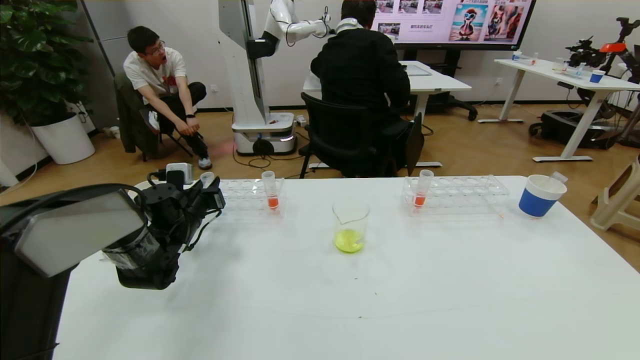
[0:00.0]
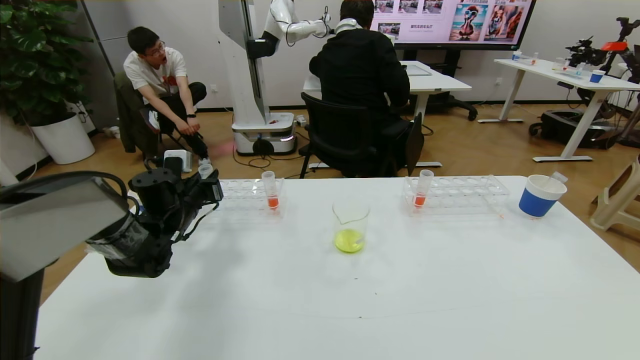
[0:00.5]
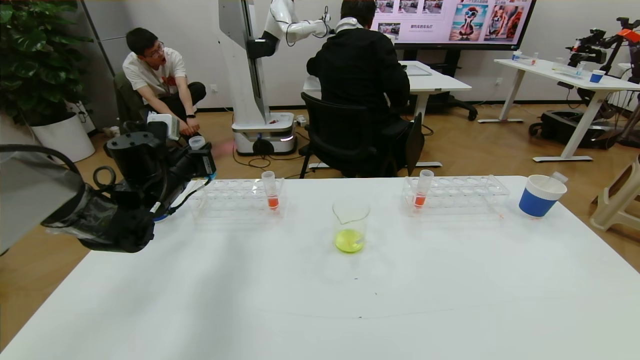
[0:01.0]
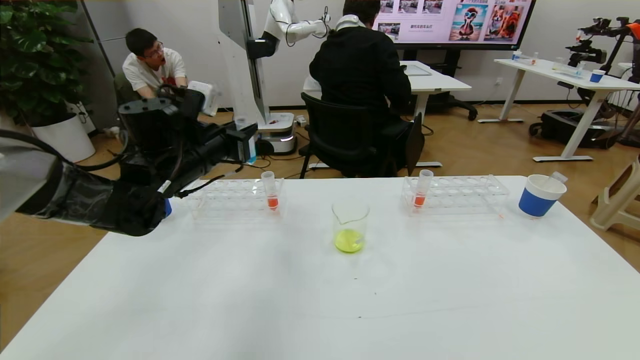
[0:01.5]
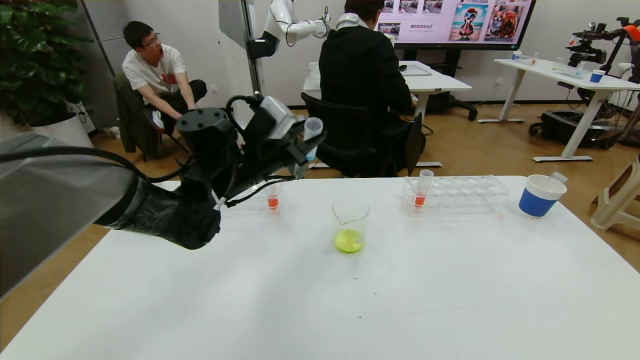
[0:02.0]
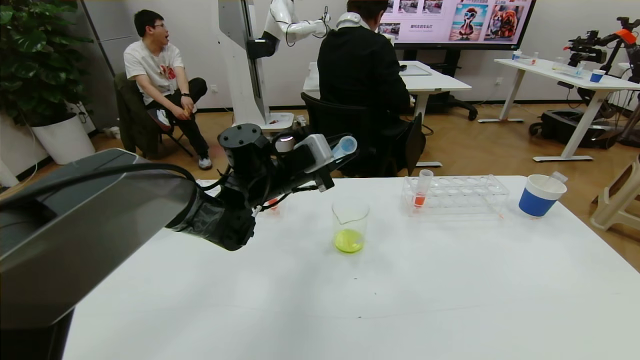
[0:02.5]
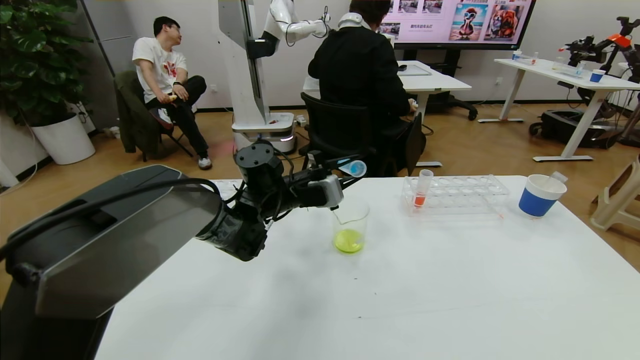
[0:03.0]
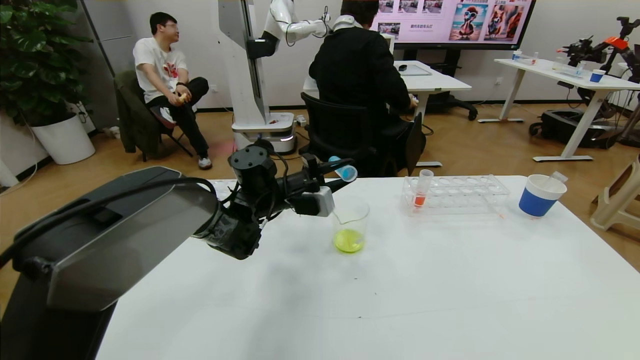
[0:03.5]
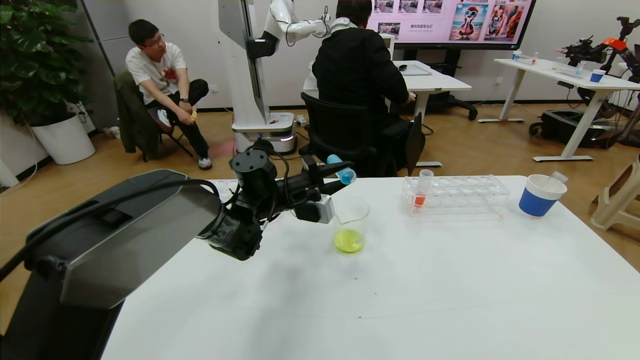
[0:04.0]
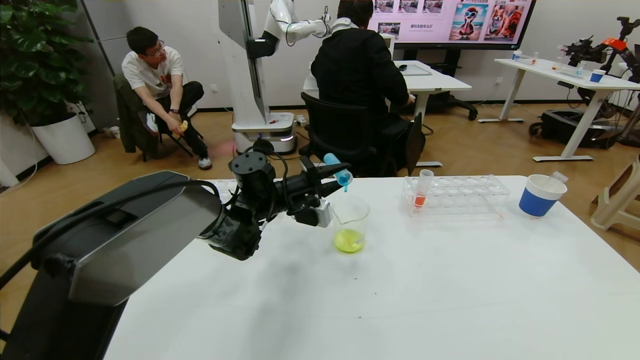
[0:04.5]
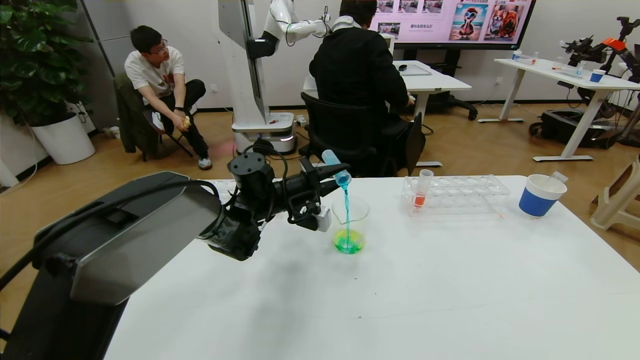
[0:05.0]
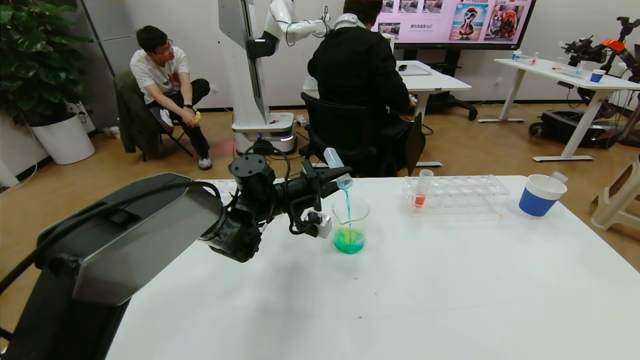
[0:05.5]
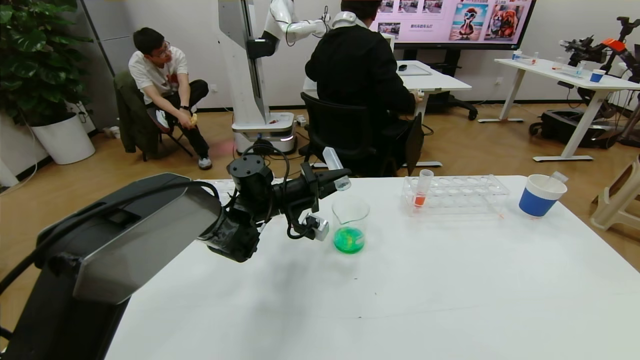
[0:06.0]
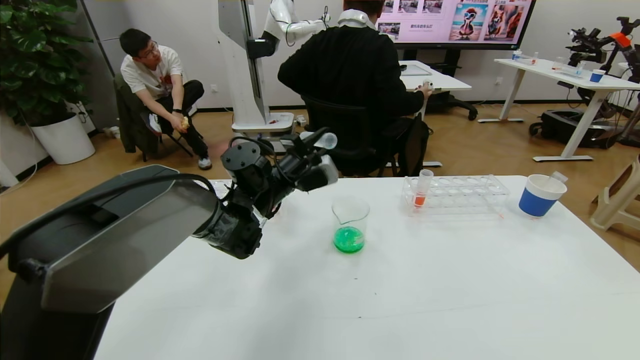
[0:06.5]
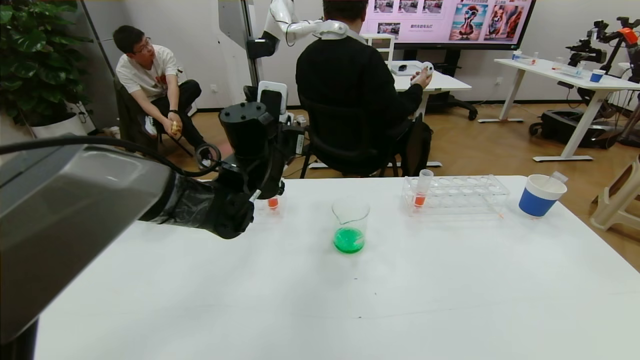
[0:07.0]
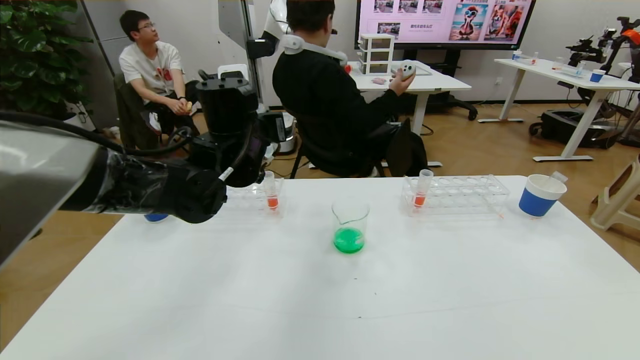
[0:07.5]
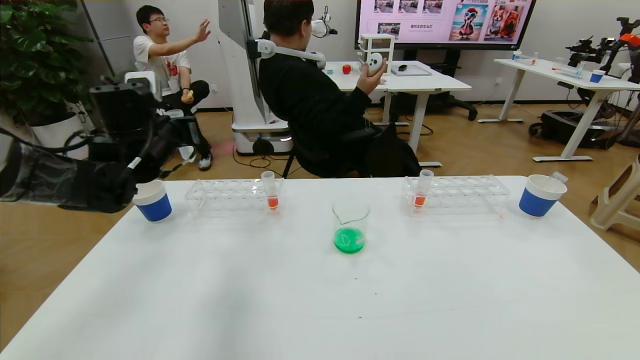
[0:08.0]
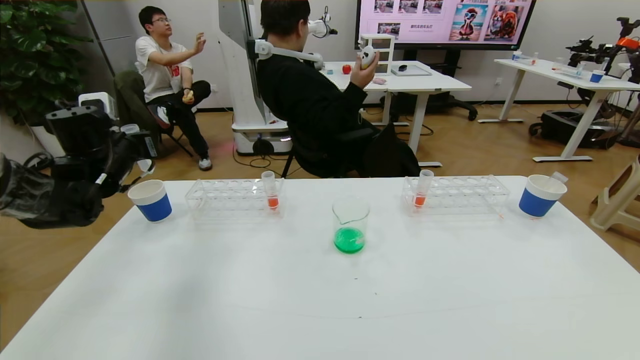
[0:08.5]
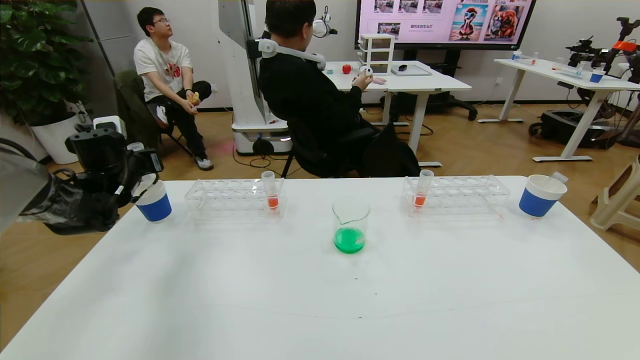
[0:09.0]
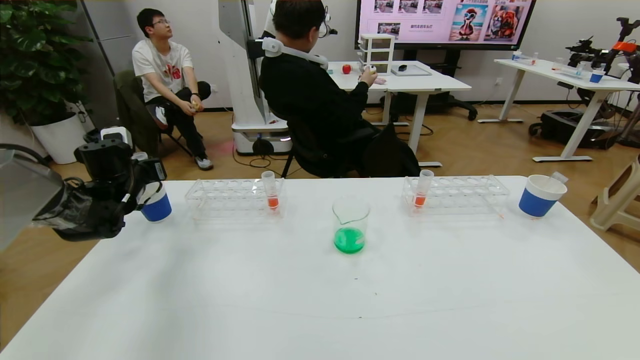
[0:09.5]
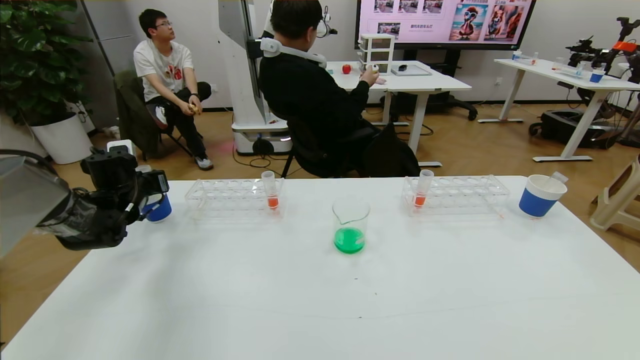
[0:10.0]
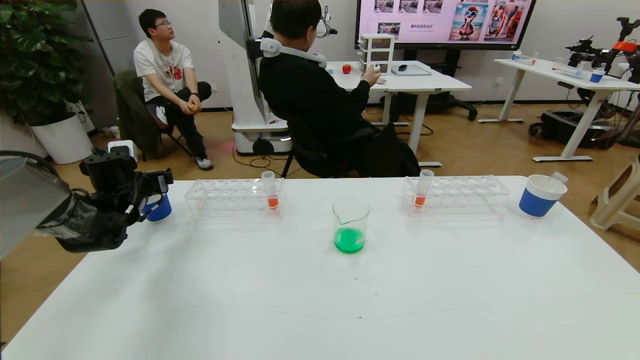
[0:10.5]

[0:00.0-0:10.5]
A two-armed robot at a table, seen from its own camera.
Task of the whole recording: pick up the test tube with yellow pigment and the test tube with blue pigment by grippers and pour them into the beaker.
0:00.0 to 0:02.0: The left gripper travels to the right and upward by roughly 20 cm.
0:02.0 to 0:04.0: The left gripper is displaced downward by approximately 10 cm.
0:06.5 to 0:08.5: The left gripper travels to the left by roughly 25 cm.
0:08.5 to 0:10.5: The left gripper shifts about 10 cm downward, and opens its fingers.

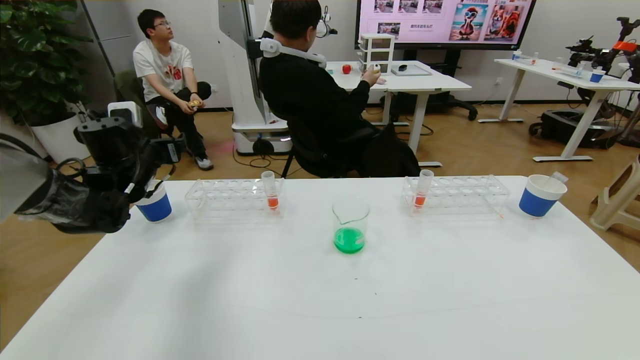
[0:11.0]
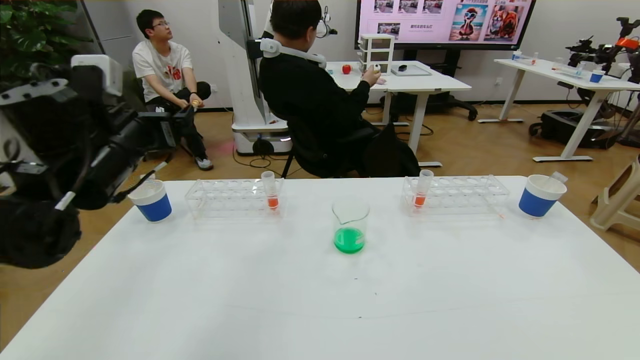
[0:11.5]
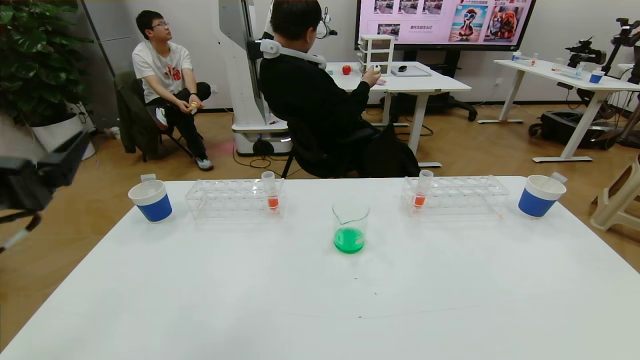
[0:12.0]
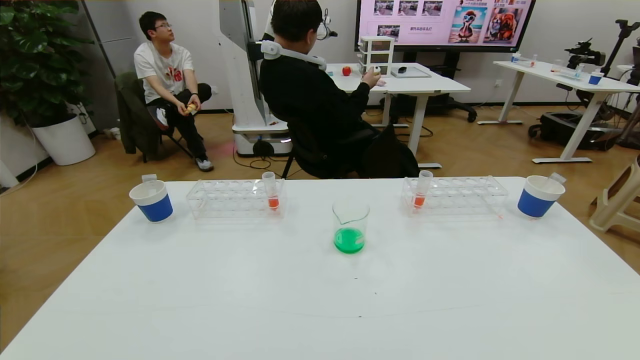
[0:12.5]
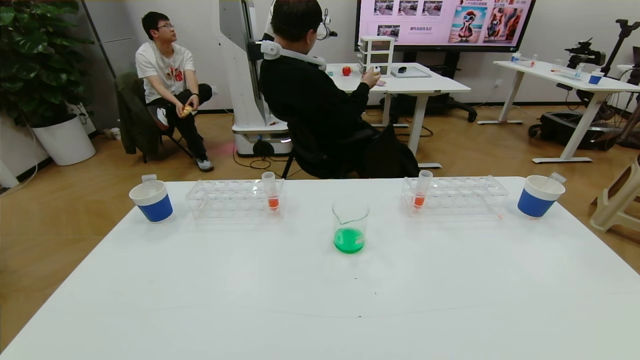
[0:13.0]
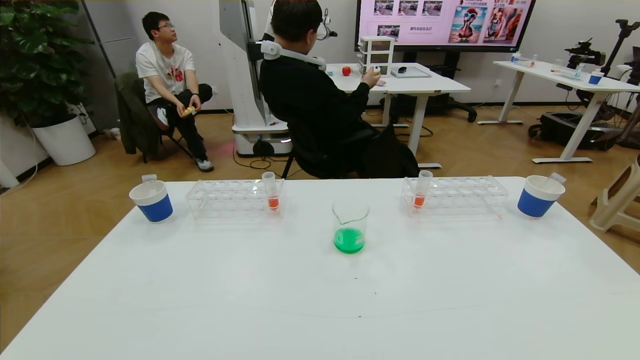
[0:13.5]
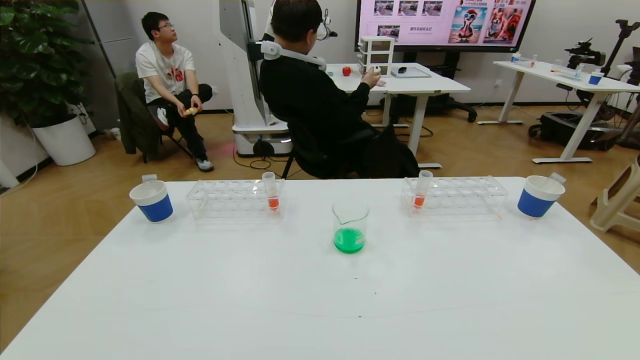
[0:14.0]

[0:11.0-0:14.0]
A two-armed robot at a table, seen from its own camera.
Task of the whole recording: pick up the test tube with yellow pigment and the test tube with blue pigment by grippers and pour them into the beaker.
0:11.0 to 0:12.5: The left gripper travels backward by about 40 cm.
